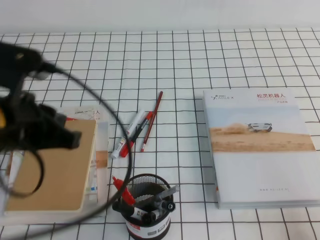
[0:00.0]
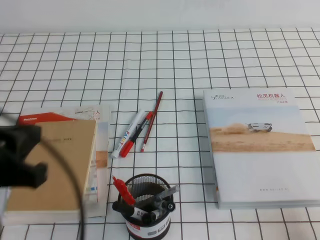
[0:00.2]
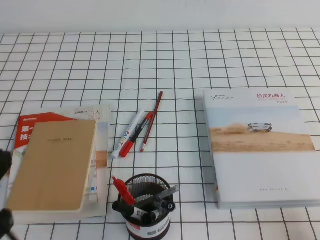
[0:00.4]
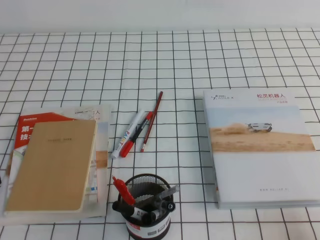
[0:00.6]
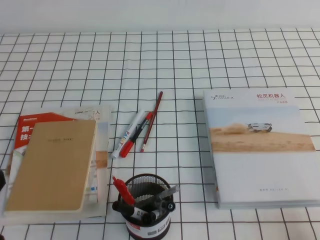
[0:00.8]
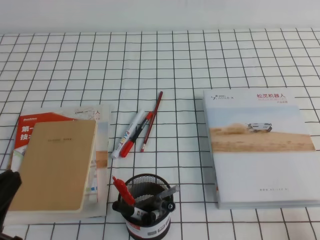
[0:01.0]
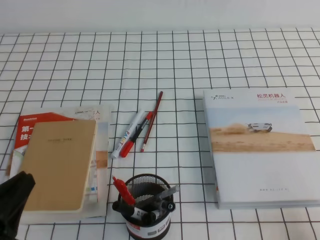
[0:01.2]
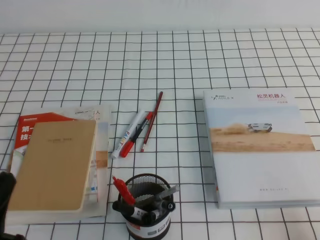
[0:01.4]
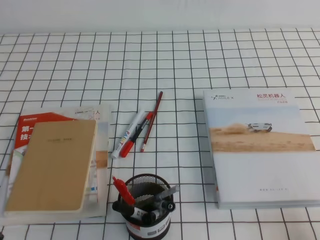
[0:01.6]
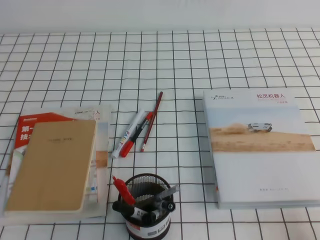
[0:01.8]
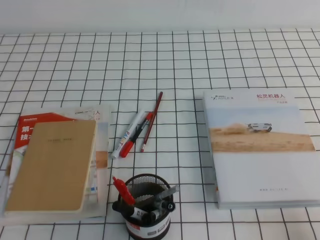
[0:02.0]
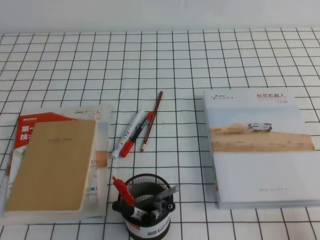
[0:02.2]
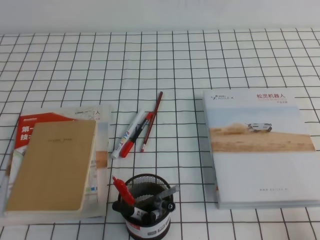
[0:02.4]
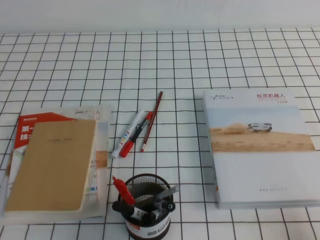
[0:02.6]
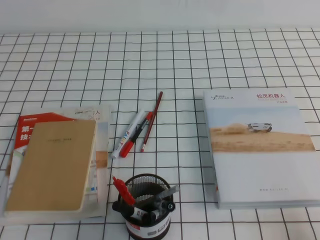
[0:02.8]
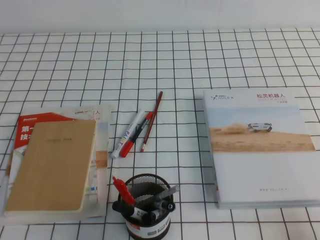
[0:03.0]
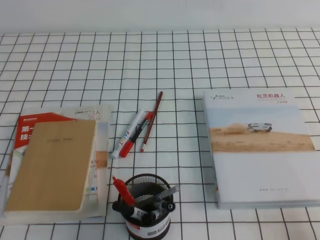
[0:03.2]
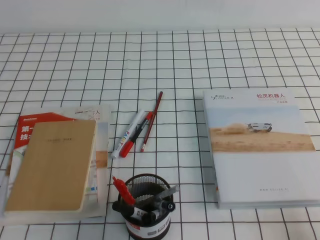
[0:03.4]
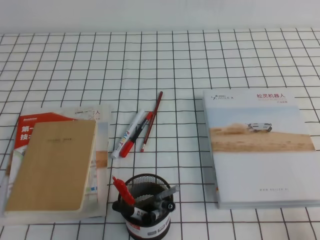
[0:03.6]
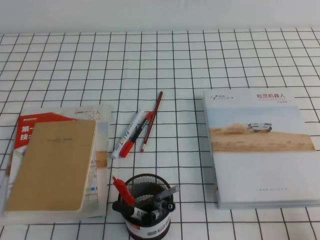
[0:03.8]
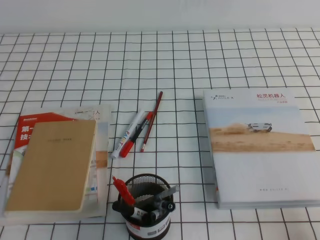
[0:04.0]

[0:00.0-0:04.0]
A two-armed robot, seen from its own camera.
Step, 0:00.0 to 0:04.0: Pick up the pen from the pen holder.
0:00.0 to 0:01.4: The left gripper travels backward, downward and to the left by about 20 cm.
0:01.4 to 0:02.6: The left gripper goes approximately 5 cm downward.
0:02.6 to 0:04.0: Both grippers stay about where they are.
